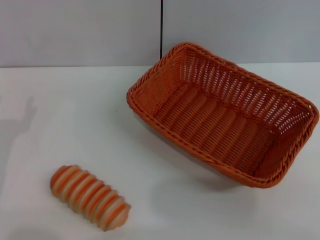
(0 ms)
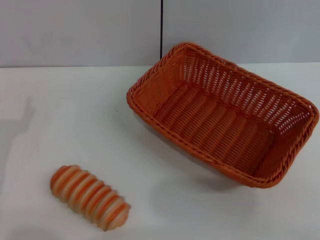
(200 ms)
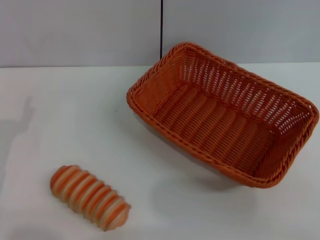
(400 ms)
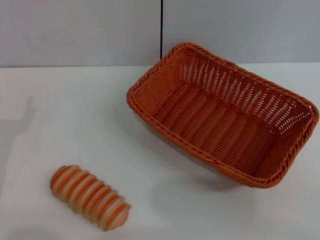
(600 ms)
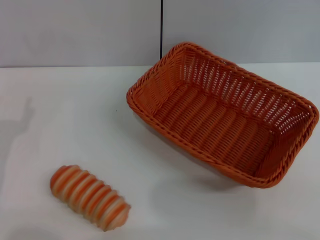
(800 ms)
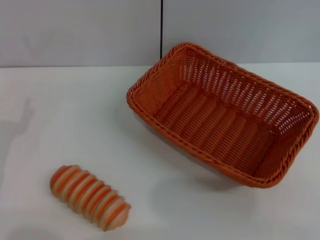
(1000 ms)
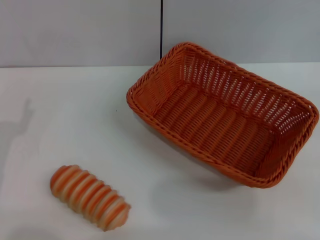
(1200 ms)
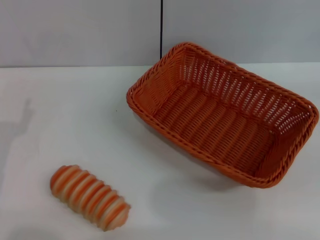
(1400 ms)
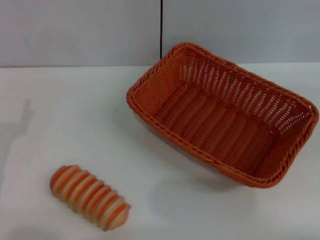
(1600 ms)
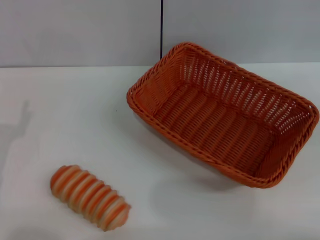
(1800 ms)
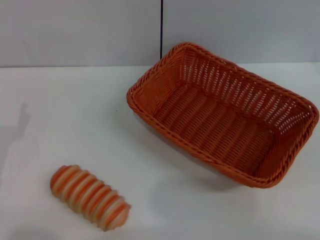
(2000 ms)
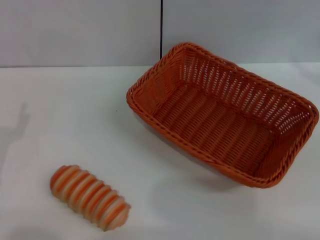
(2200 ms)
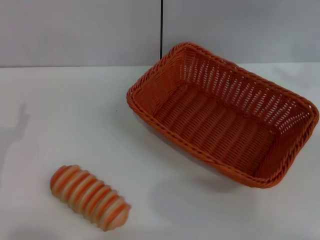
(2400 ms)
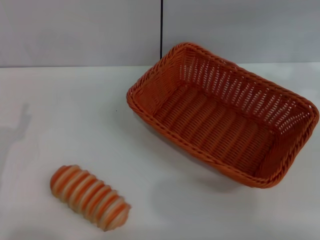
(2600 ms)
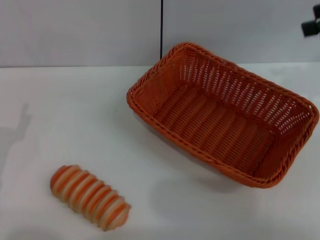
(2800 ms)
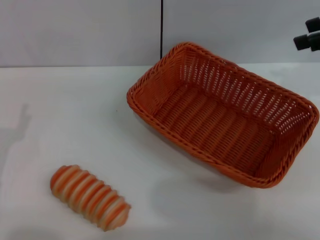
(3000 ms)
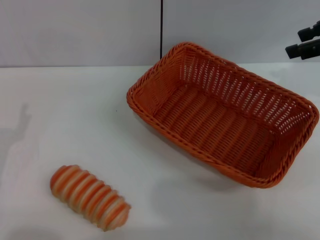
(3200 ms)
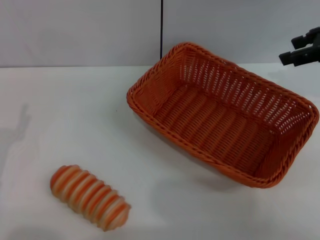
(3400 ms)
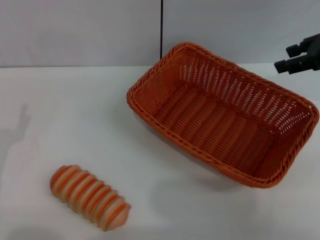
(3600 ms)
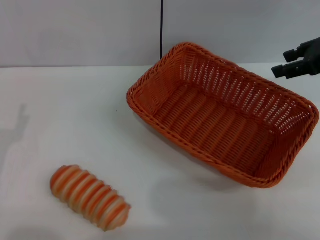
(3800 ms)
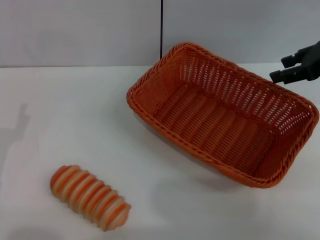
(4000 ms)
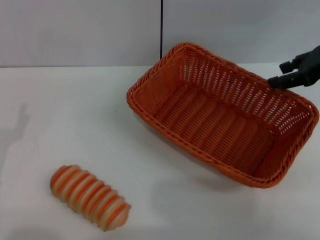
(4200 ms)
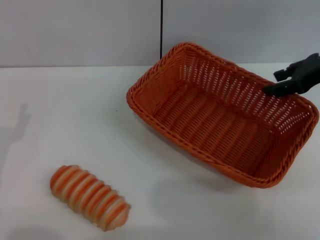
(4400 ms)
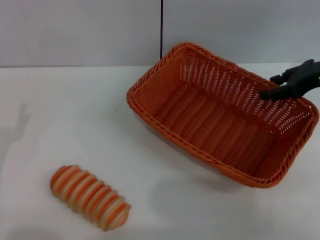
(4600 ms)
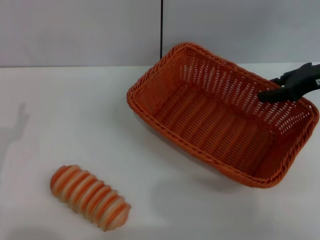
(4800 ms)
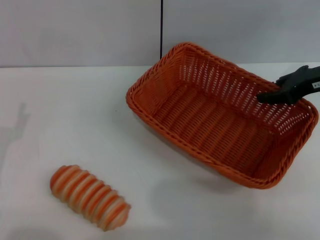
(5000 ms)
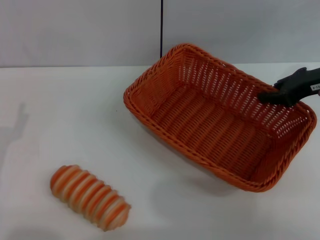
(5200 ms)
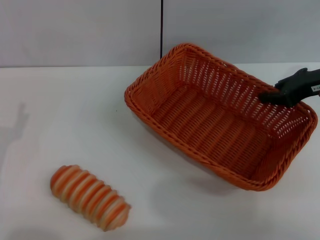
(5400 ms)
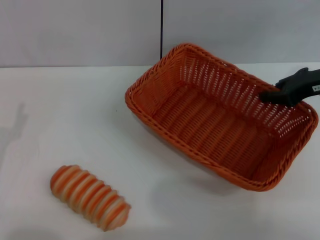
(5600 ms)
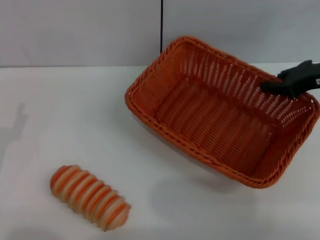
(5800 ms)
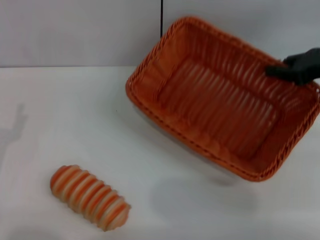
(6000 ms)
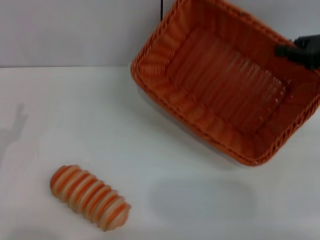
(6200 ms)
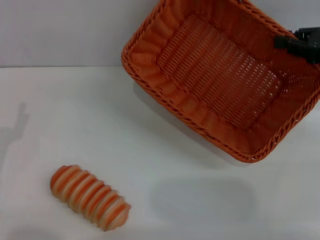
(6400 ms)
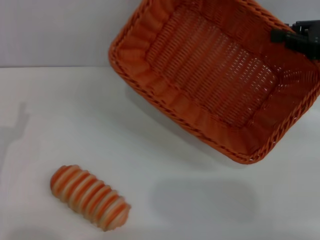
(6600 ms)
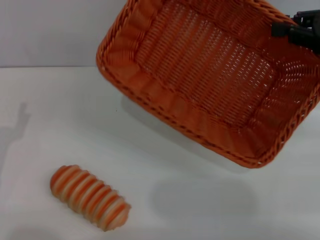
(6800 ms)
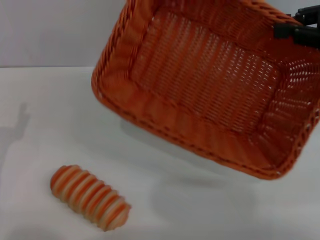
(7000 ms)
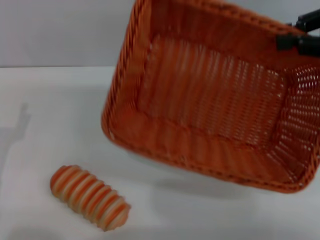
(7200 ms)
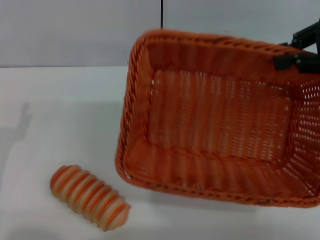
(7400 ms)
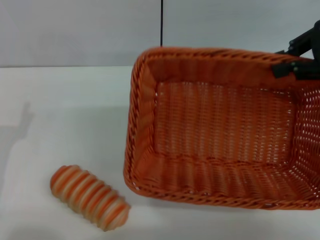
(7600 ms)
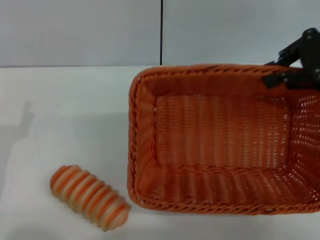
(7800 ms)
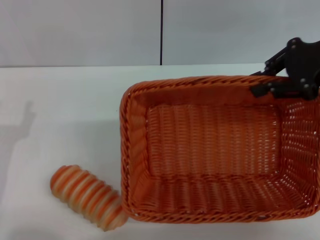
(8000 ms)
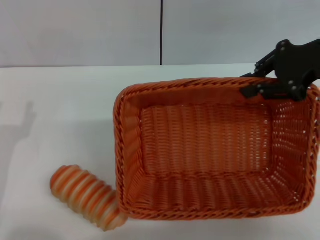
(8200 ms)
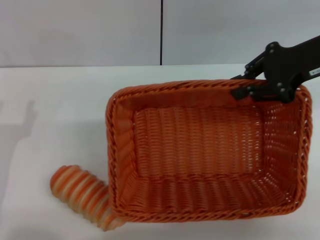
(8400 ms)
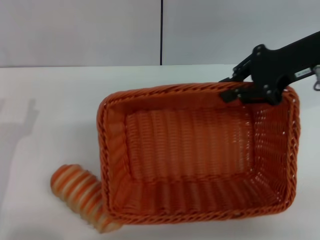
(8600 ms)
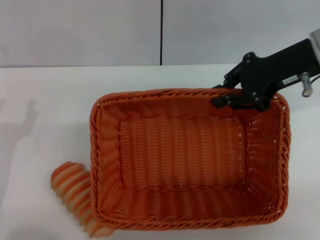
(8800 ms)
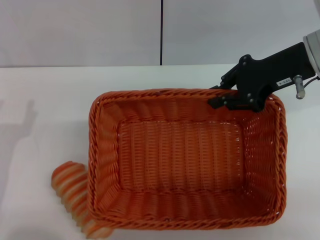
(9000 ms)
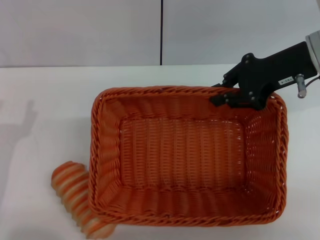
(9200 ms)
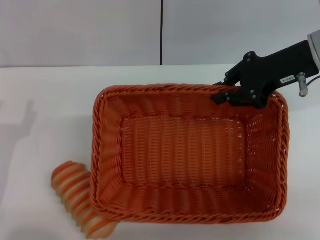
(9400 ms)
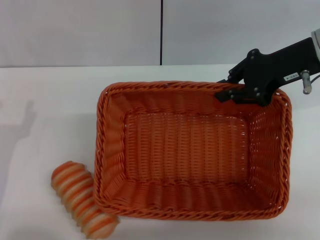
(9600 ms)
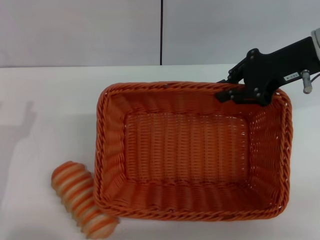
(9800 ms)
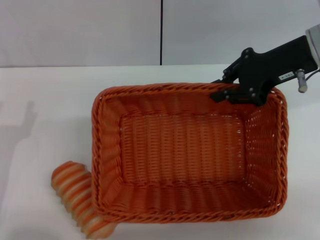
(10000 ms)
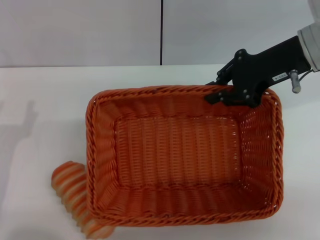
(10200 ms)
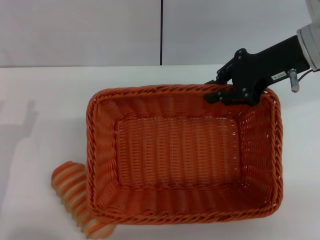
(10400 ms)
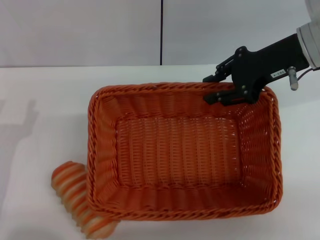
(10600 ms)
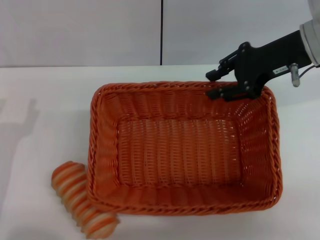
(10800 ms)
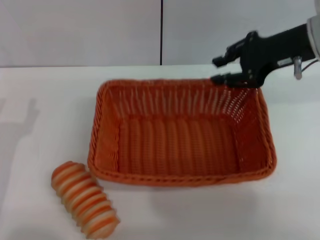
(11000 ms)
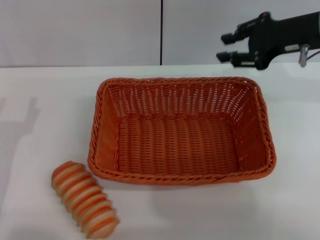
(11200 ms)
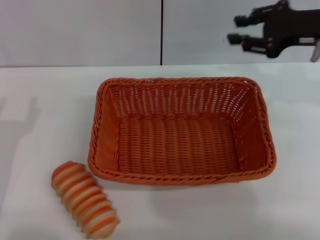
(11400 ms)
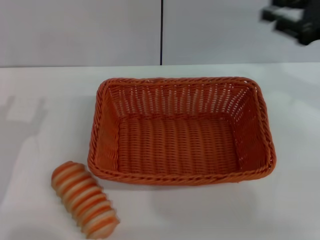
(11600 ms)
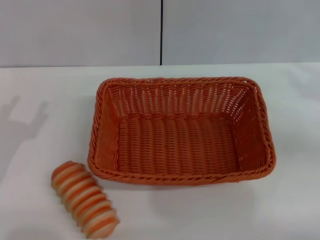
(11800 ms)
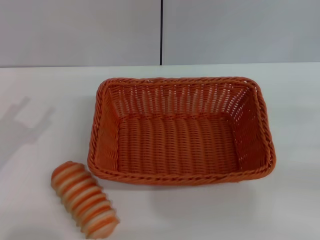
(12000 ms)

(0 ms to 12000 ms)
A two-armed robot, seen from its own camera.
Step, 0 ms - 6200 ms: Pick up the light basket with the right gripper.
Step, 6400 ms - 11000 ms: Place the light basket in the center of view with the right gripper.
1600 ms - 3000 ms: The right gripper is displaced to the left and forward by some 20 cm.
3000 ms - 4400 ms: The right gripper travels downward by roughly 10 cm.
4400 ms - 6000 ms: The right gripper closes.
6000 ms - 7600 ms: The right gripper goes approximately 10 cm upward.
7600 ms - 9000 ms: The right gripper goes about 10 cm to the left and downward.
9000 ms - 10400 ms: Neither gripper changes place.
10400 ms - 12000 ms: The left gripper ends up about 5 cm from where it was; the right gripper travels to the right, backward and downward by some 25 cm, and opens up.

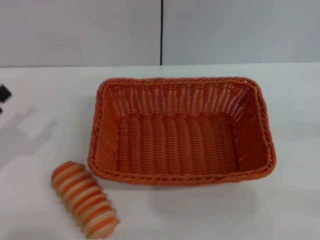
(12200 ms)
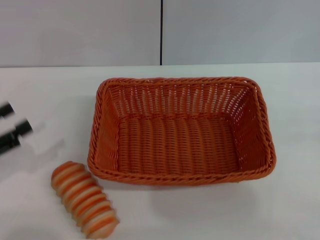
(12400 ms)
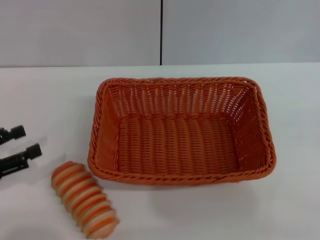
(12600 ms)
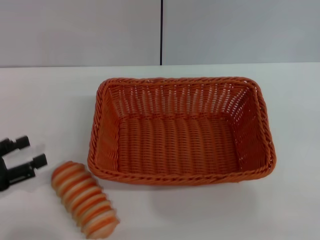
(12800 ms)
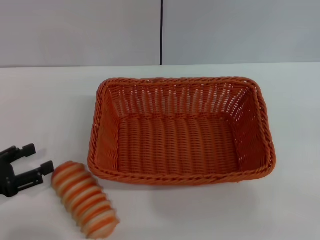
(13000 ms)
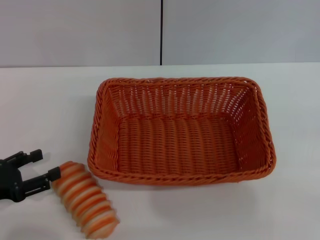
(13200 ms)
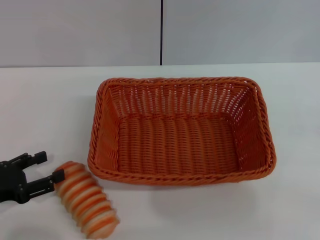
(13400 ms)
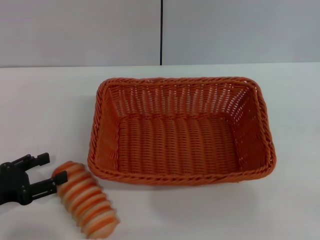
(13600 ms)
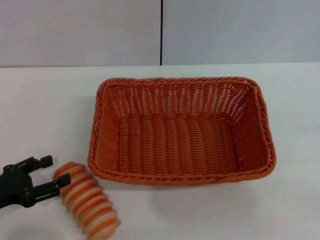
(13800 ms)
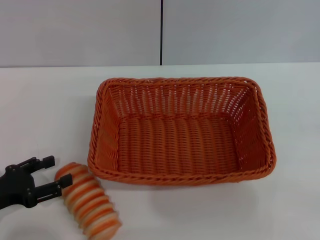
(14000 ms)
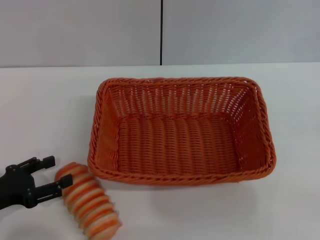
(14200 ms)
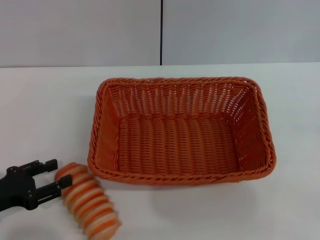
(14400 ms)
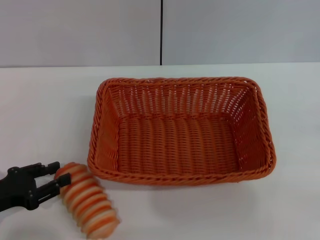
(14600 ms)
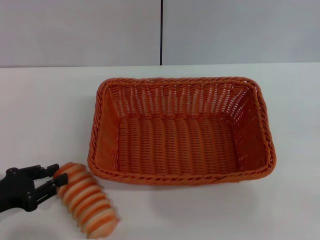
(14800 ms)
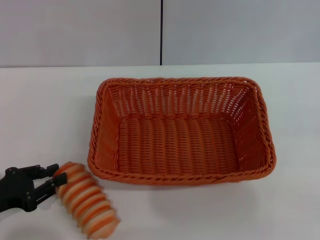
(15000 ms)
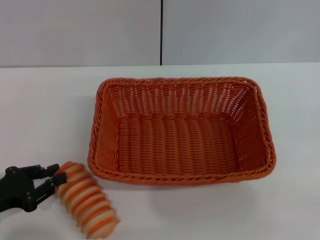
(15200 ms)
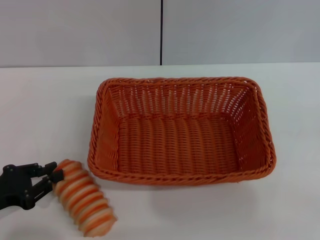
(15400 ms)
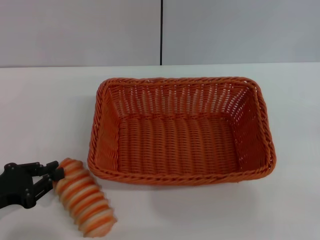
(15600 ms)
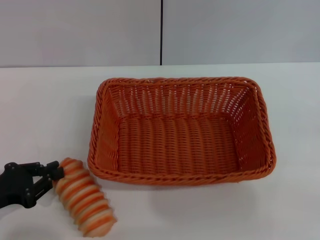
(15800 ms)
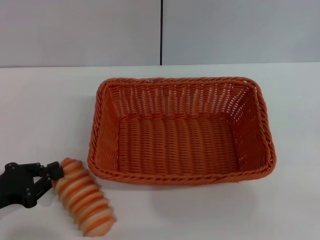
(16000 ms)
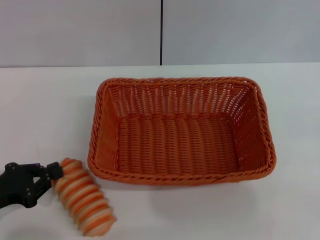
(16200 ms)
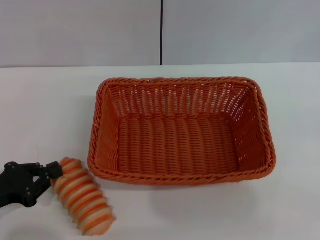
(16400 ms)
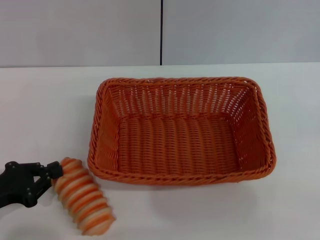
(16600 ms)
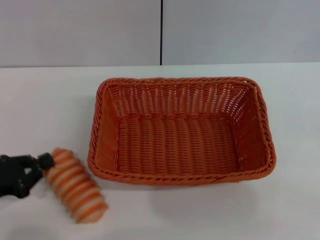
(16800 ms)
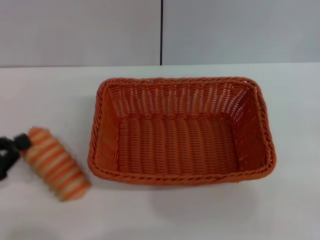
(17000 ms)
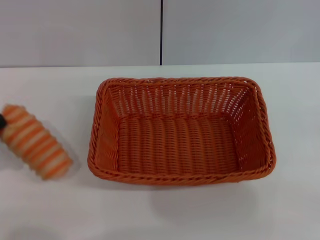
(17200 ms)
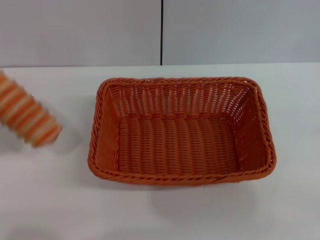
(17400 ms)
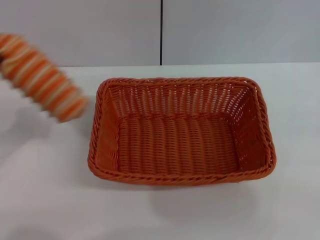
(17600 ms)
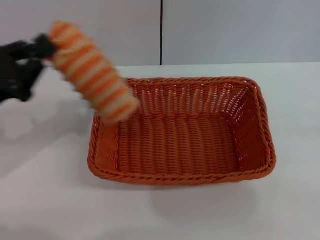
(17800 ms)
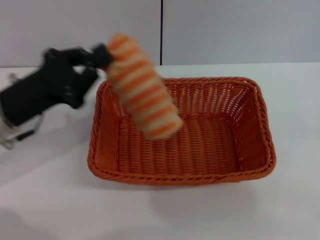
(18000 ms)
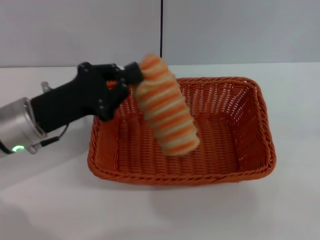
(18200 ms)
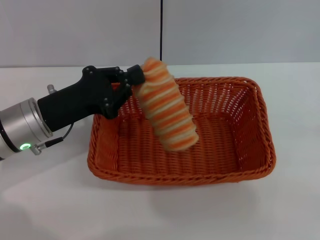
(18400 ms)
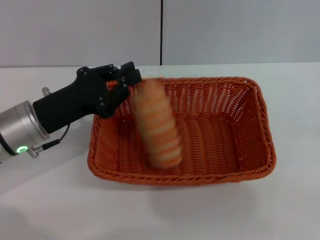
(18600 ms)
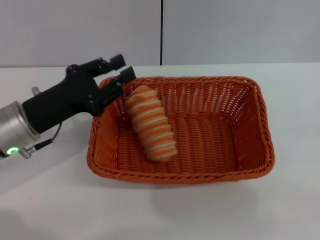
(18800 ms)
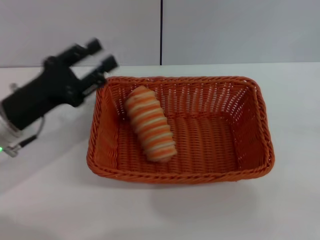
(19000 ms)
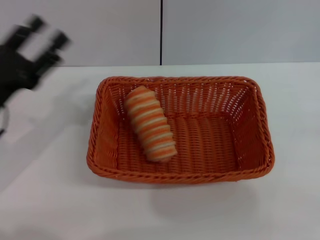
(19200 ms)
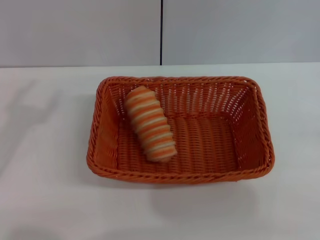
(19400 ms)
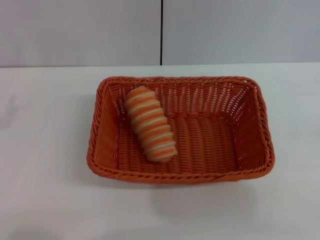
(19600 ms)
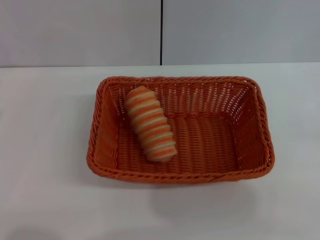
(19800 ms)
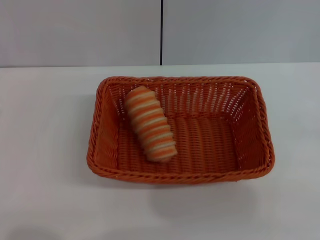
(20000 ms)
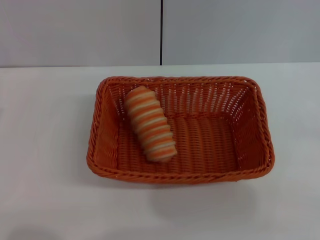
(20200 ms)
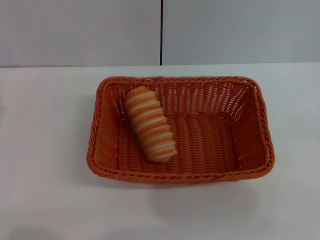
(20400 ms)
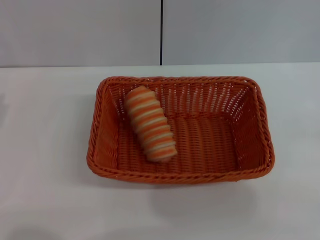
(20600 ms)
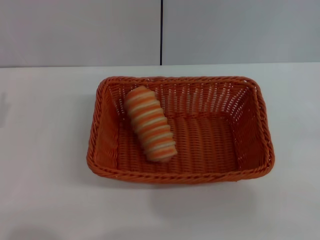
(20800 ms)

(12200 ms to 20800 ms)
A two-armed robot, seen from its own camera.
Step, 12200 ms - 17200 ms: Pick up the long bread with the left gripper.
Step, 17600 ms - 19000 ms: Place the long bread into the light basket with the left gripper.
12200 ms - 13600 ms: The left gripper moves about 5 cm.
13600 ms - 15000 ms: The left gripper closes.
15000 ms - 16600 ms: Both grippers stay put.
16600 ms - 18000 ms: The left gripper shifts approximately 15 cm forward, to the right and upward.
18000 ms - 19400 ms: The left gripper travels to the left by about 5 cm, and opens its fingers.

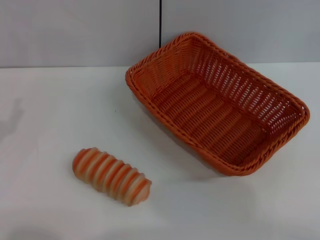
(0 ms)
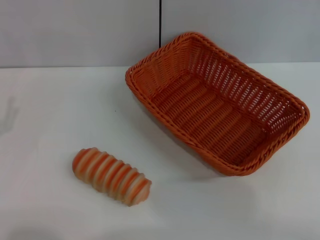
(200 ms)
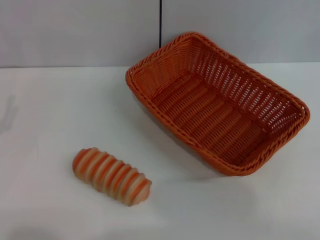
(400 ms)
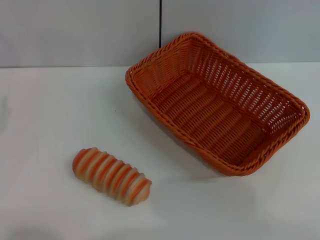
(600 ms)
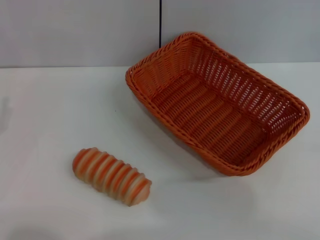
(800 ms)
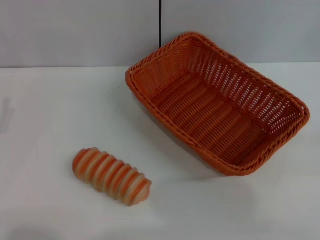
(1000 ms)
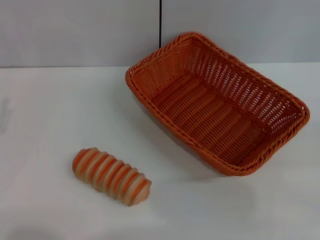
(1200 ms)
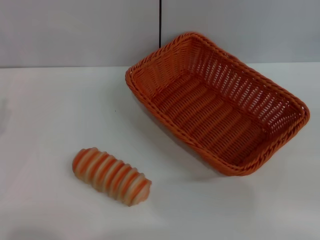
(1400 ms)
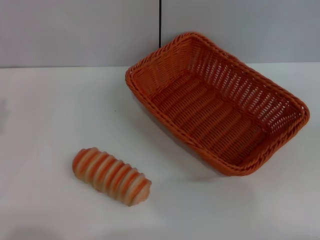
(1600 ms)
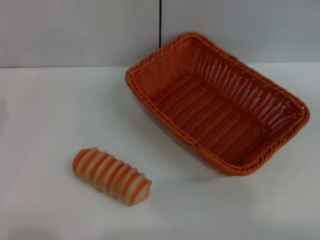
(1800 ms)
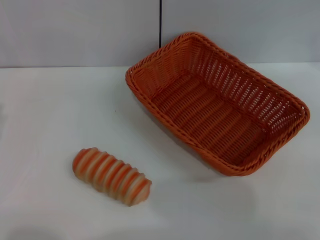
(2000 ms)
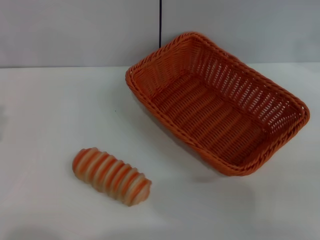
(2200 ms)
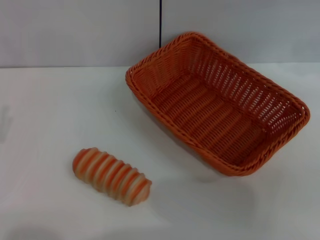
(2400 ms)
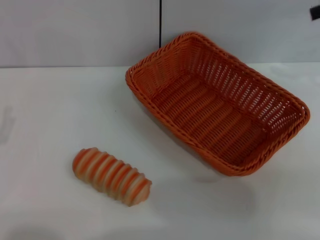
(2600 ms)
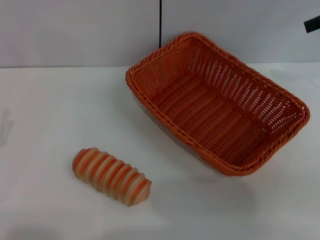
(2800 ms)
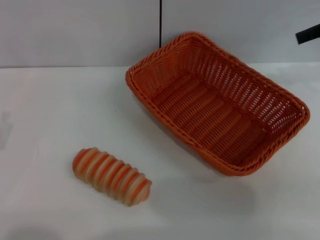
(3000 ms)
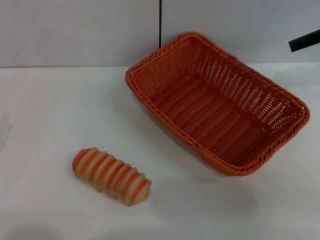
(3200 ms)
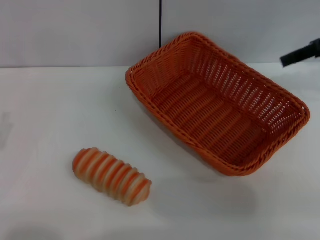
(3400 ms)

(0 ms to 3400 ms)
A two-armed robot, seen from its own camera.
1600 ms - 3400 ms: The right gripper heads to the left and forward, covering roughly 20 cm.
